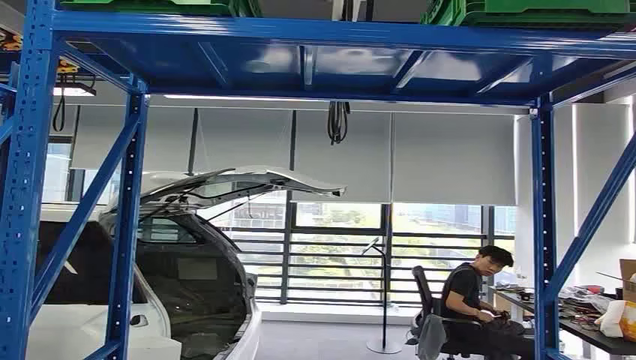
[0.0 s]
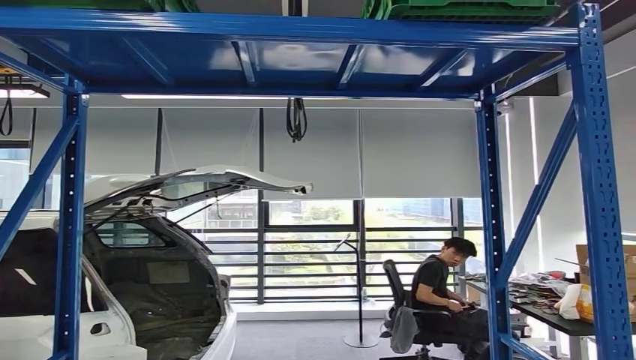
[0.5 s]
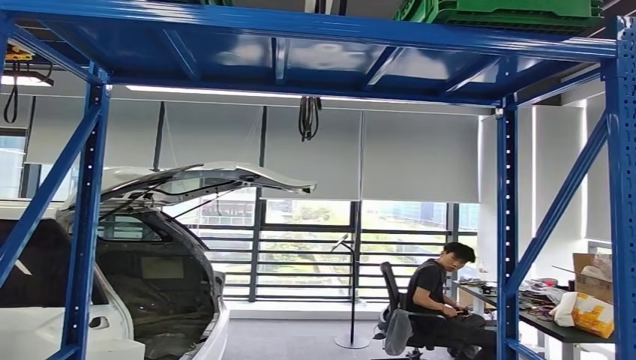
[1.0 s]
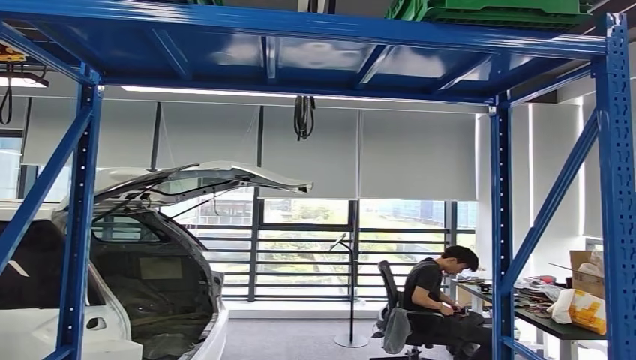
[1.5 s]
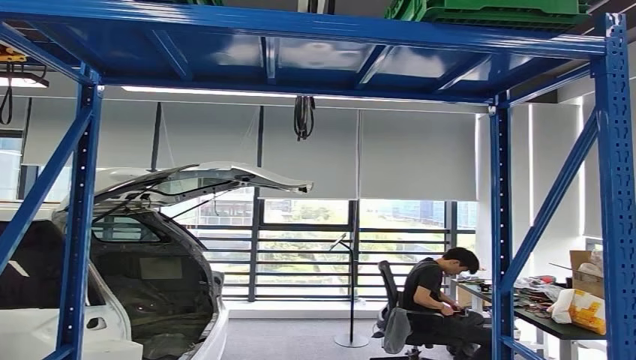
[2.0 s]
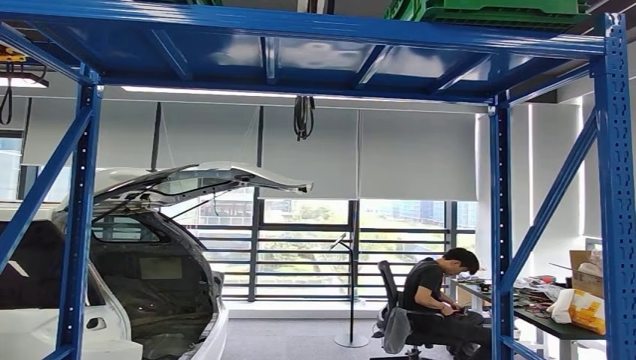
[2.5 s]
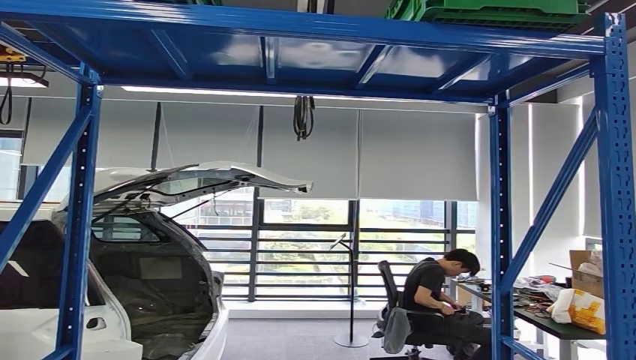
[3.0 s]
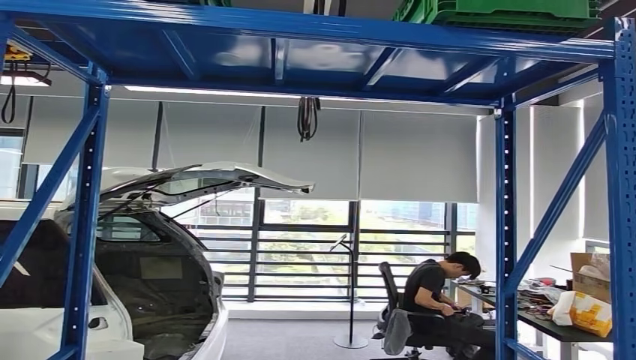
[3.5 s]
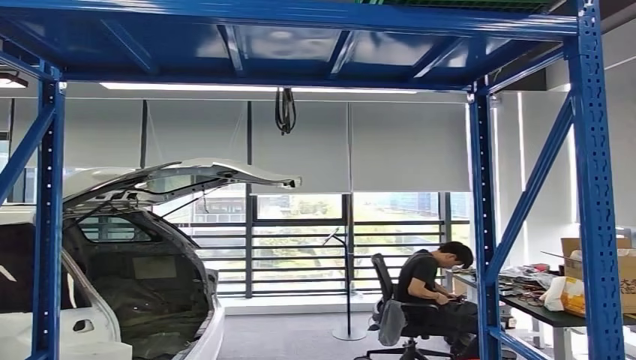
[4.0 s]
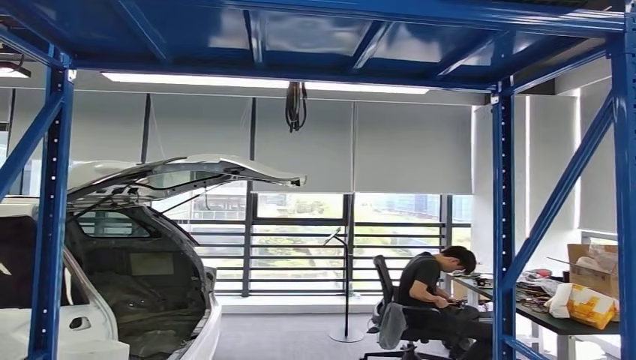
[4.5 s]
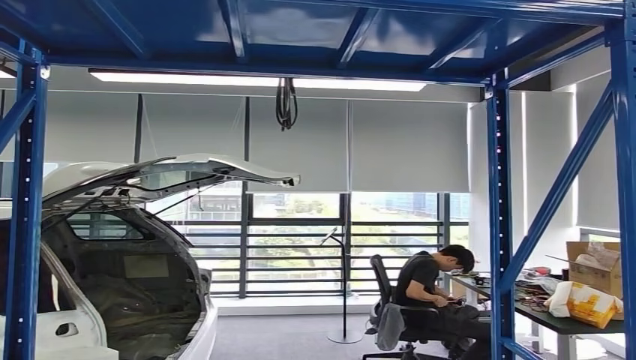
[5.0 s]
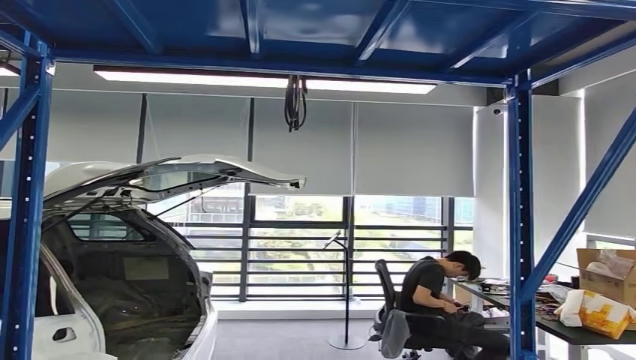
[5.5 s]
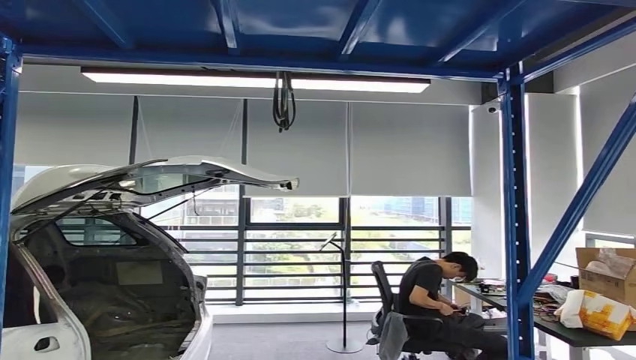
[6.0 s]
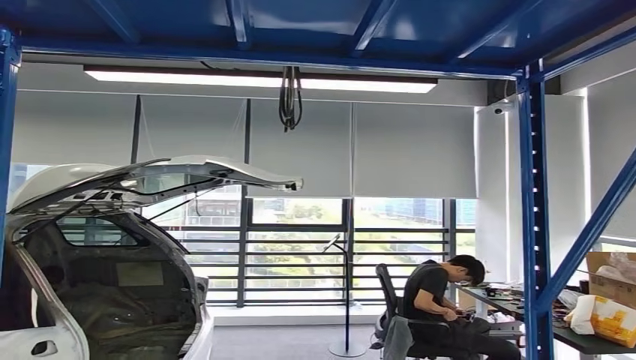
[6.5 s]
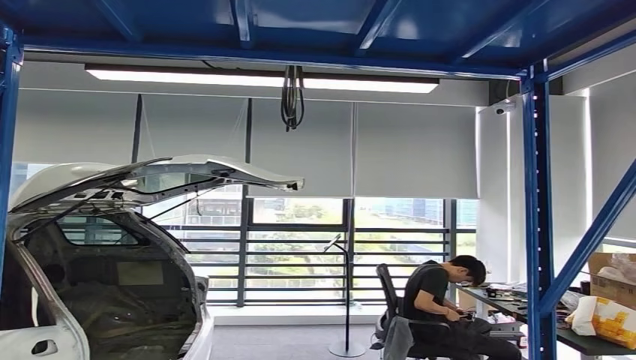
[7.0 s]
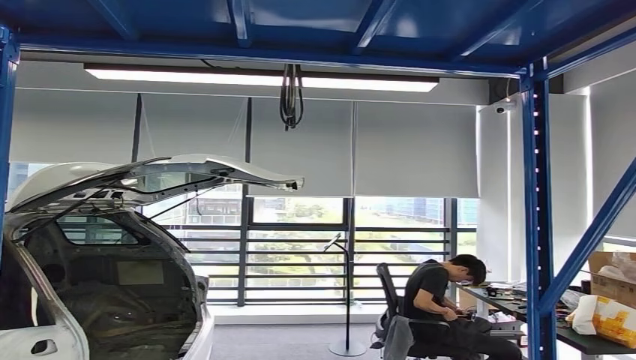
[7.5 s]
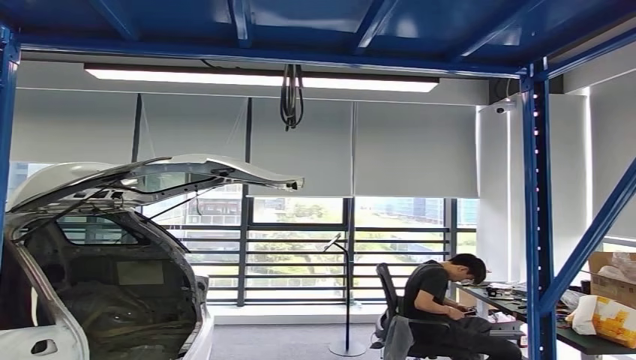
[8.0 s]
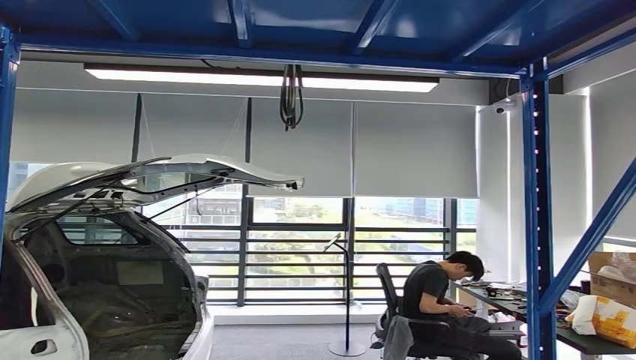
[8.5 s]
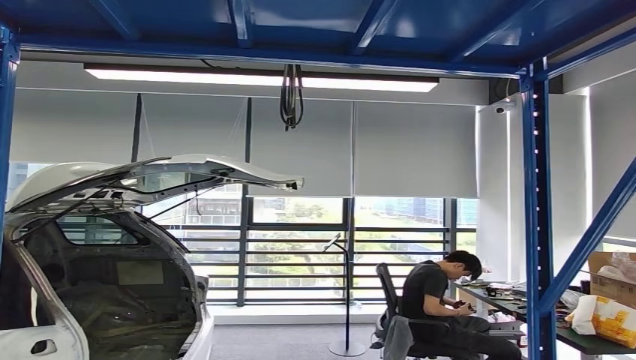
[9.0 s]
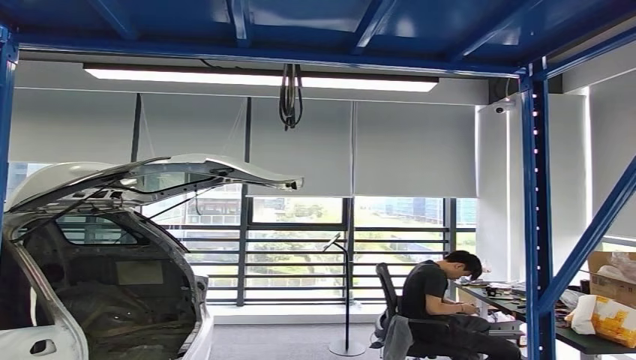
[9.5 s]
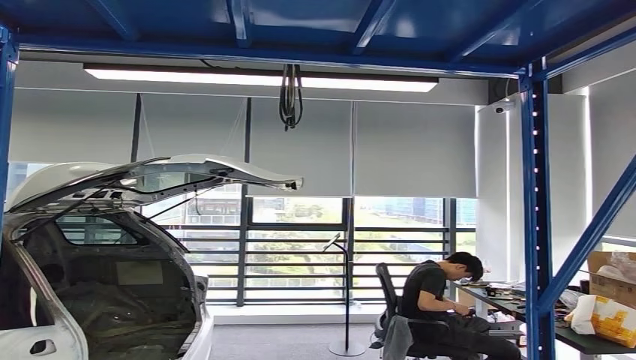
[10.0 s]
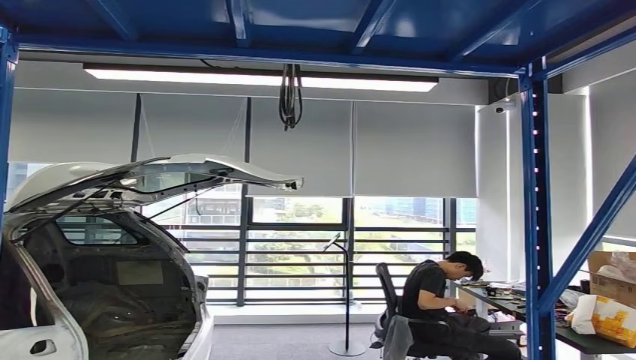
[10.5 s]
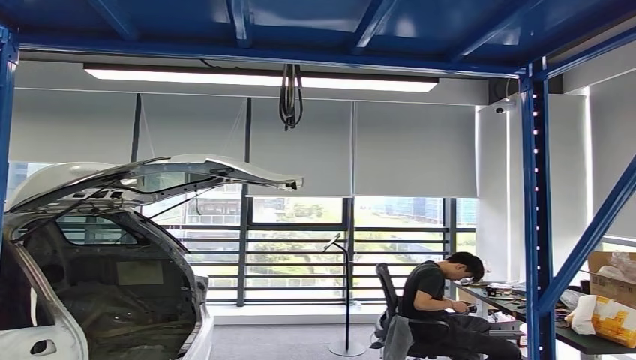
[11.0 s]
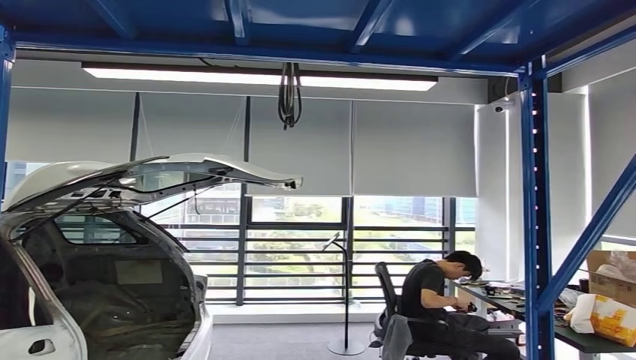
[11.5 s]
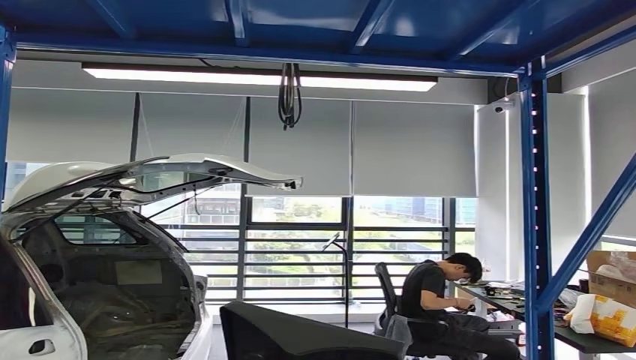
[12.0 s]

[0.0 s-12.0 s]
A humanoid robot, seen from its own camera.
Step, 0.0 to 10.5 s: Pick up the small component from the shelf.
8.0 to 10.0 s: The right hand is displaced to the left by some 10 cm.
10.0 to 12.0 s: The right hand heads upward and backward, covering about 15 cm.

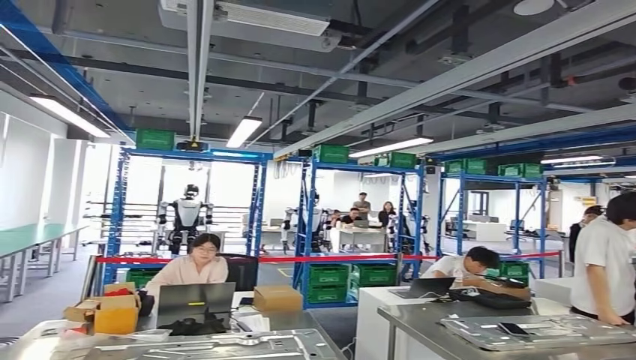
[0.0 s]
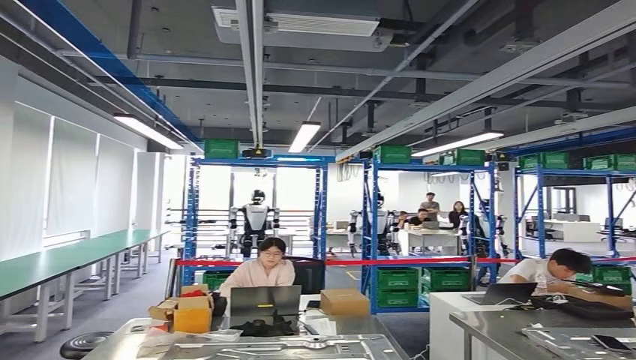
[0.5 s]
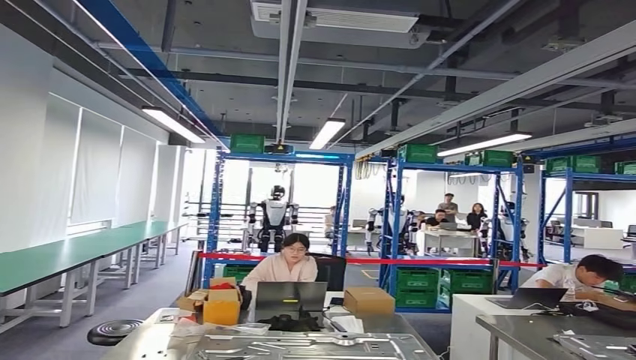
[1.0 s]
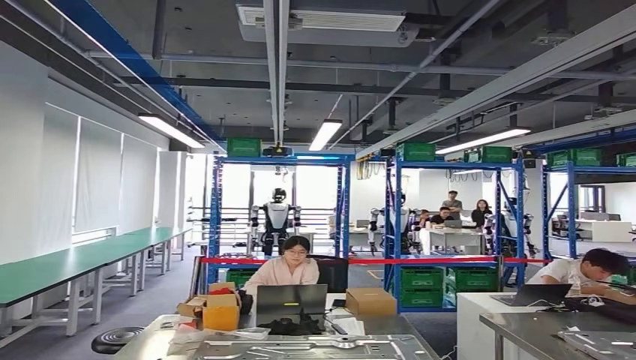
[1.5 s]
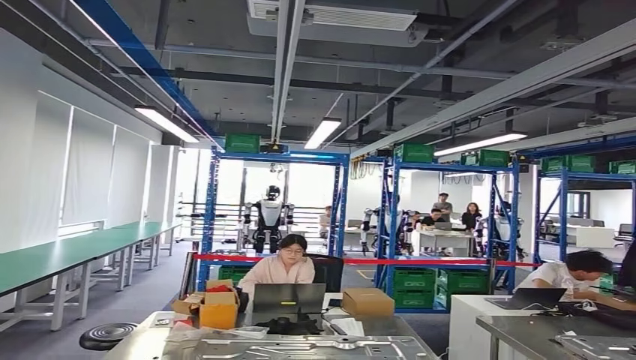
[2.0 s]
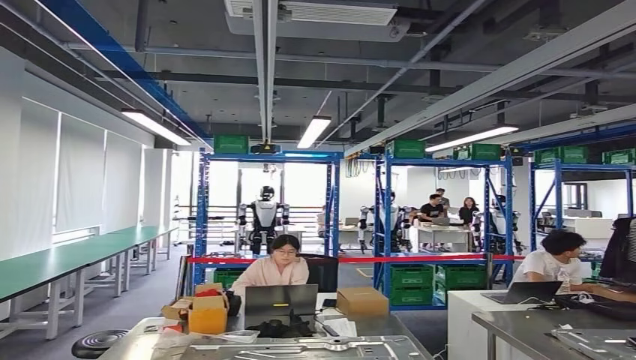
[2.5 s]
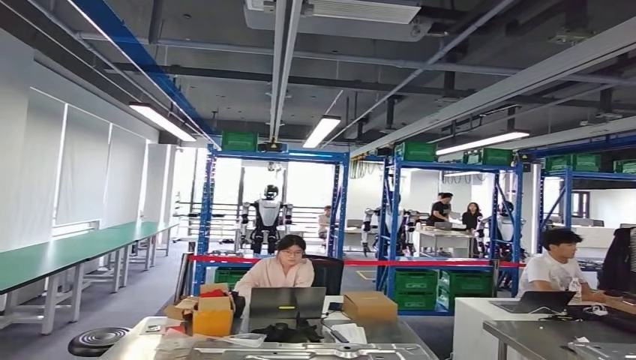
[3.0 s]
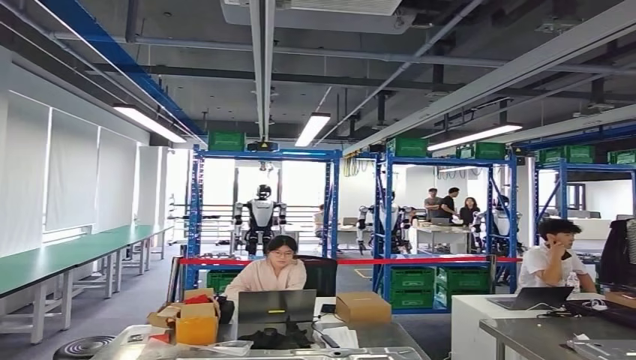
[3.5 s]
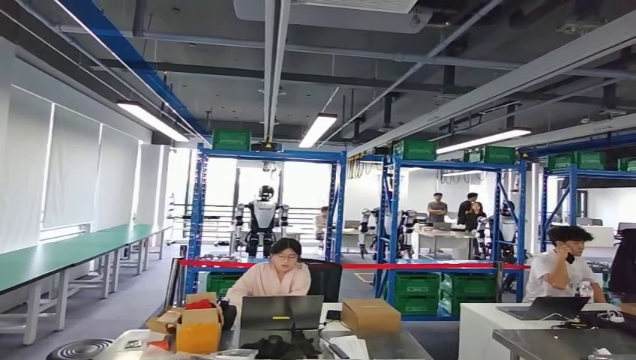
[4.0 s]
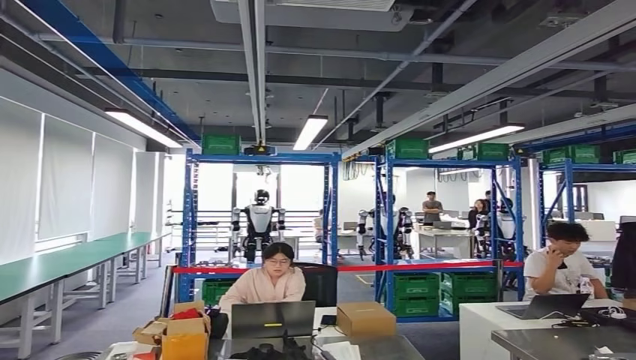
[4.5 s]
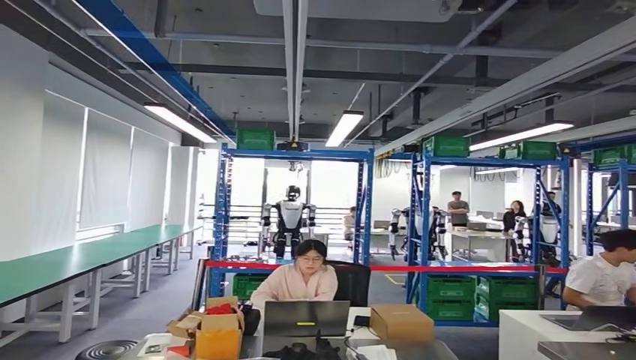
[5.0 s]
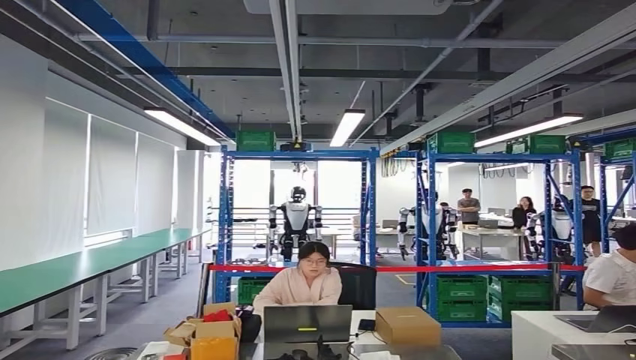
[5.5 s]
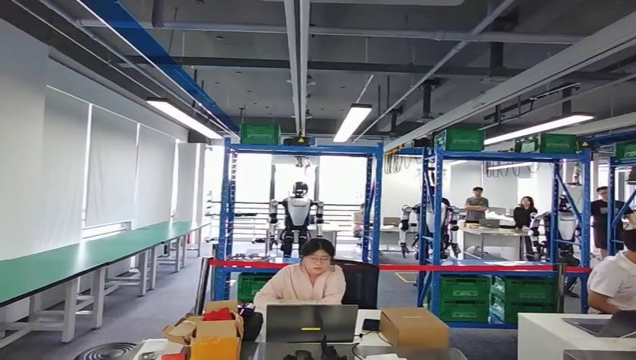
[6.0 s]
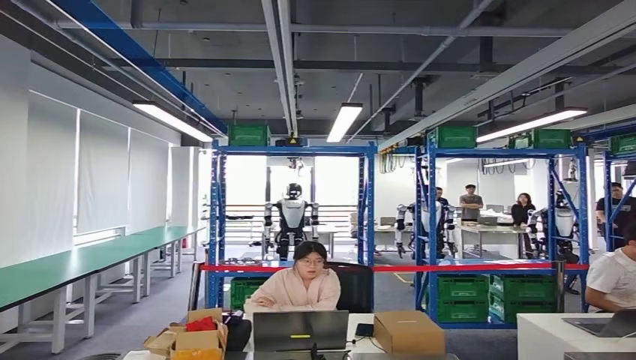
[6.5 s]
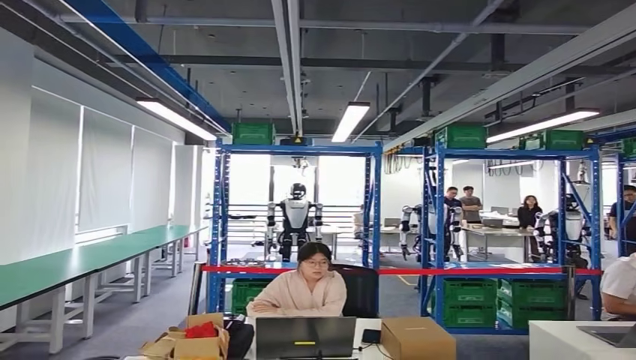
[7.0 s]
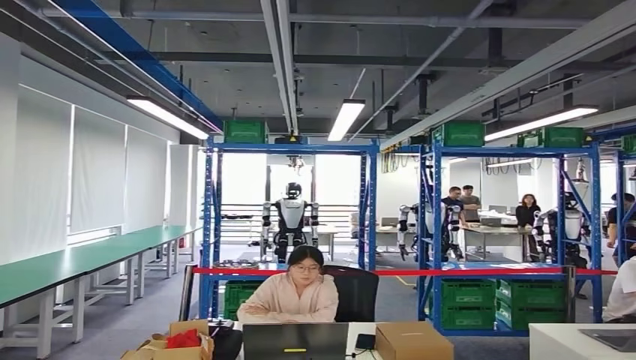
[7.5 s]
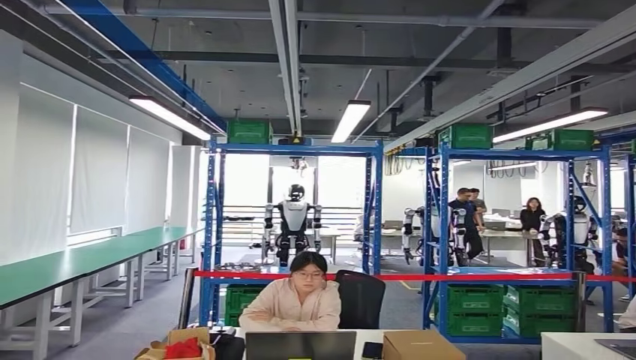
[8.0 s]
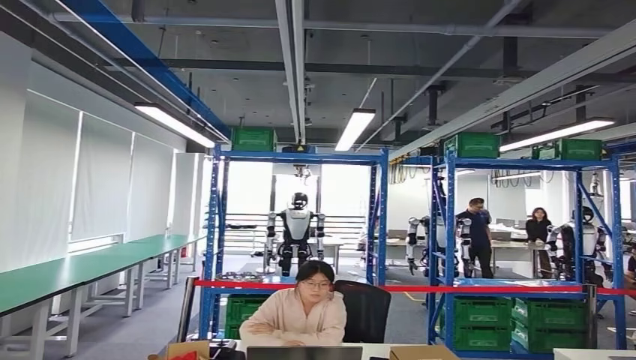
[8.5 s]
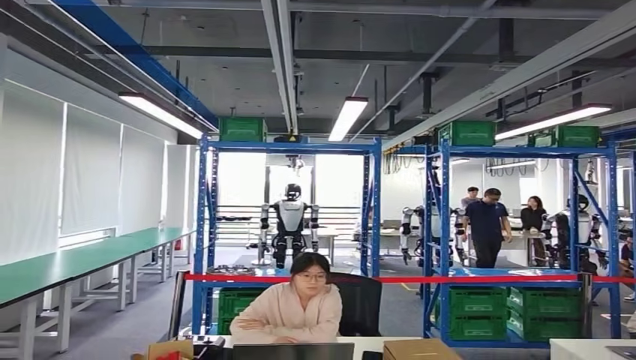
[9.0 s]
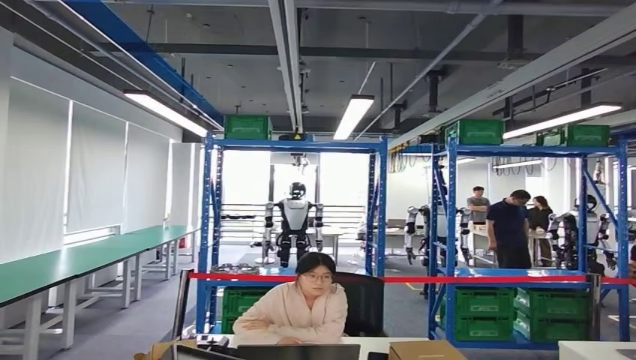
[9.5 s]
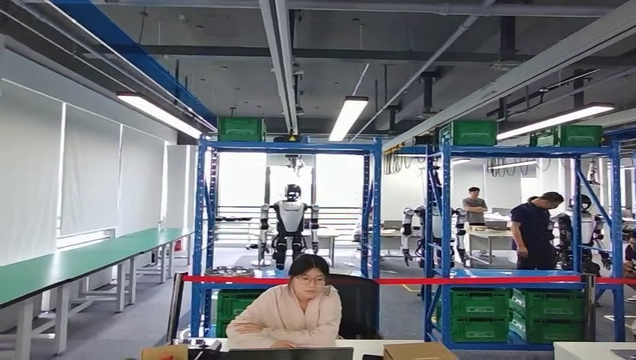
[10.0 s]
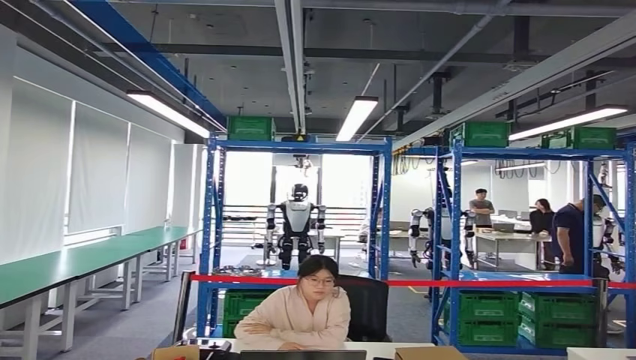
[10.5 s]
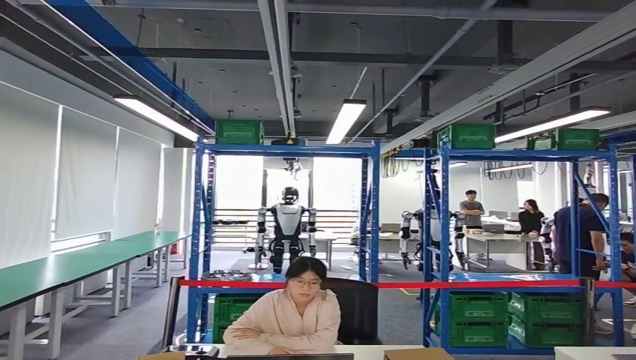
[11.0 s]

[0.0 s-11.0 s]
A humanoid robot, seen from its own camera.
Step, 0.0 to 10.0 s: Move the small component to the workbench.
